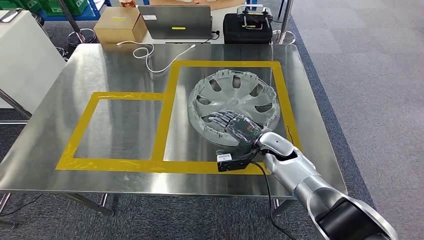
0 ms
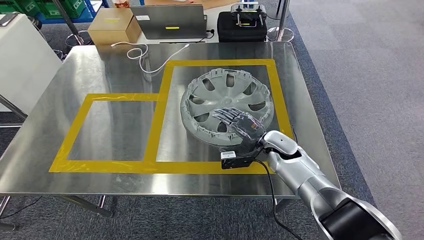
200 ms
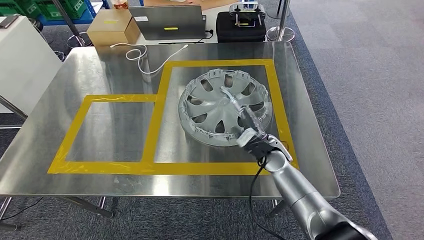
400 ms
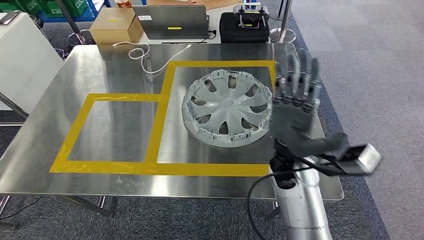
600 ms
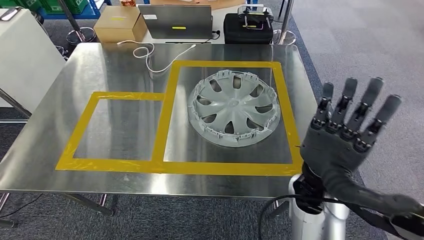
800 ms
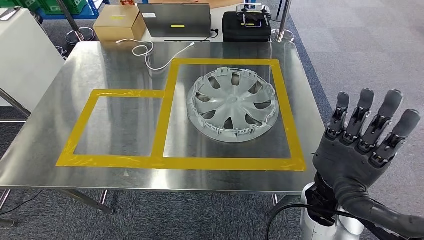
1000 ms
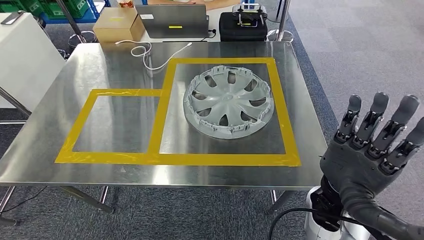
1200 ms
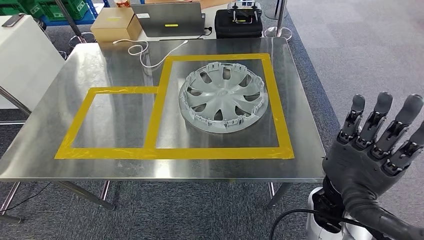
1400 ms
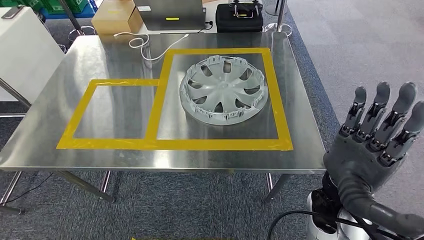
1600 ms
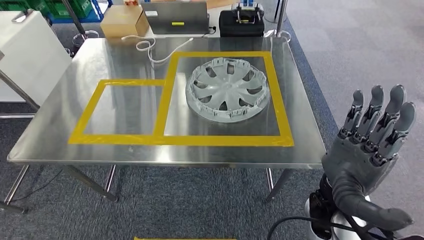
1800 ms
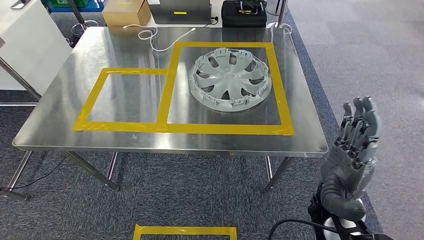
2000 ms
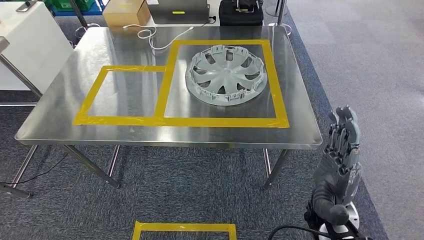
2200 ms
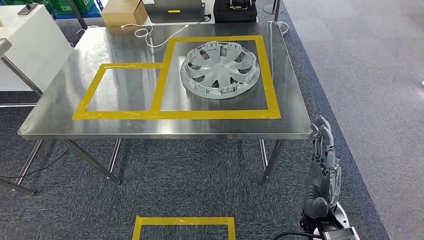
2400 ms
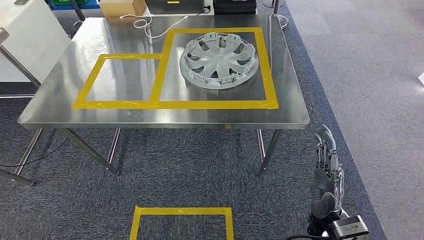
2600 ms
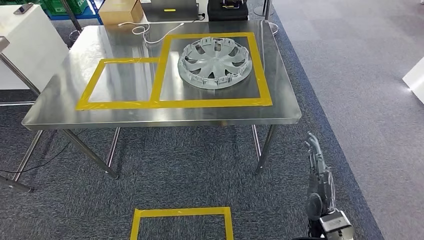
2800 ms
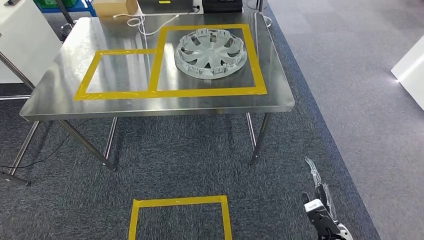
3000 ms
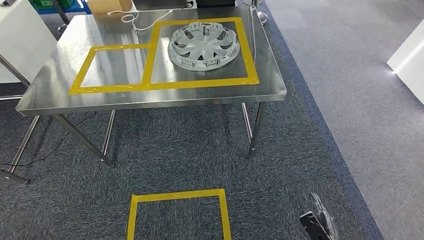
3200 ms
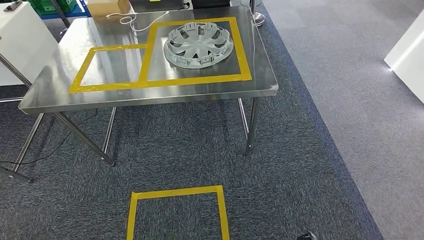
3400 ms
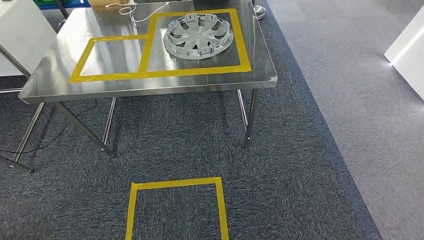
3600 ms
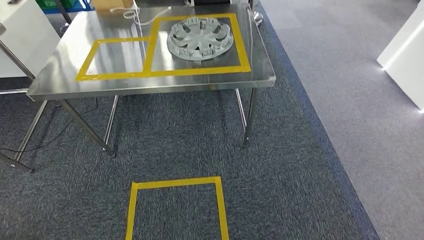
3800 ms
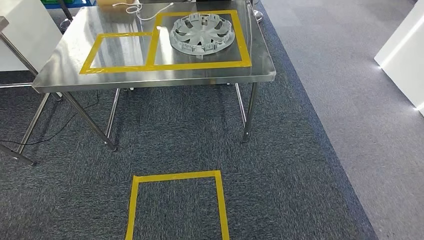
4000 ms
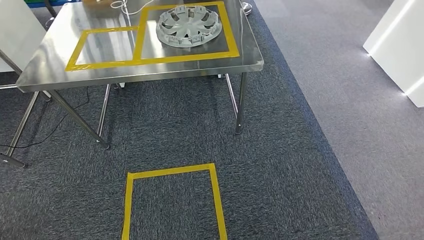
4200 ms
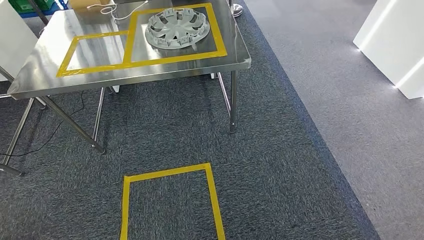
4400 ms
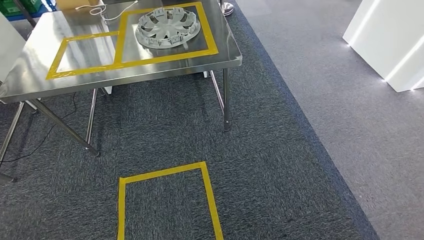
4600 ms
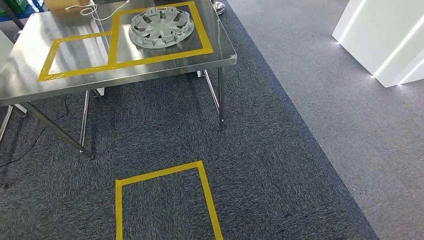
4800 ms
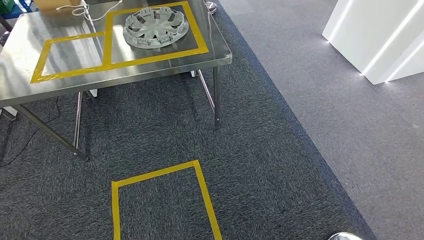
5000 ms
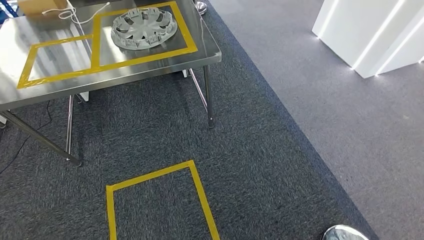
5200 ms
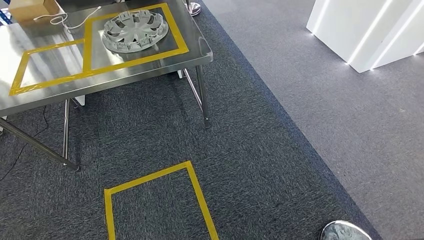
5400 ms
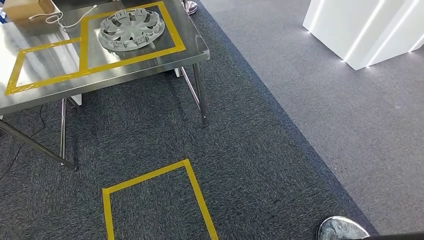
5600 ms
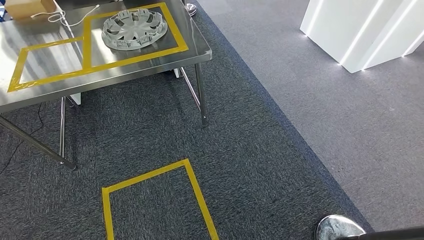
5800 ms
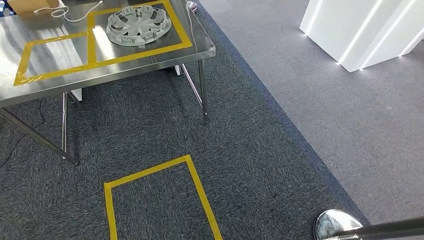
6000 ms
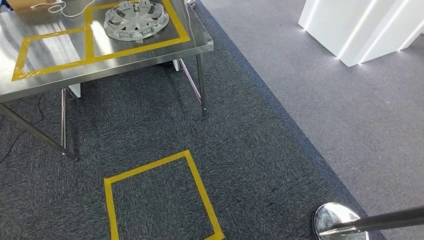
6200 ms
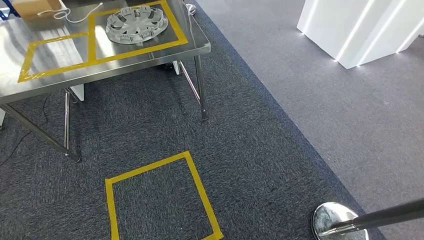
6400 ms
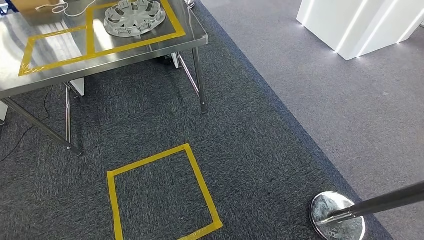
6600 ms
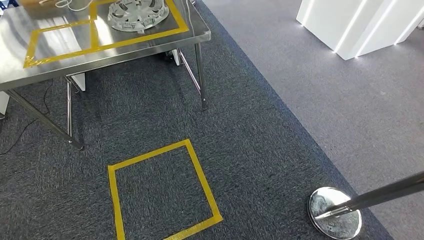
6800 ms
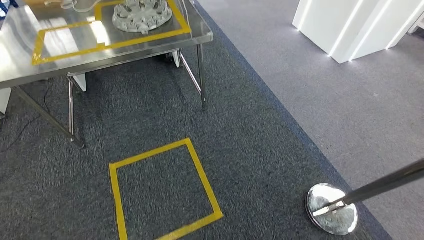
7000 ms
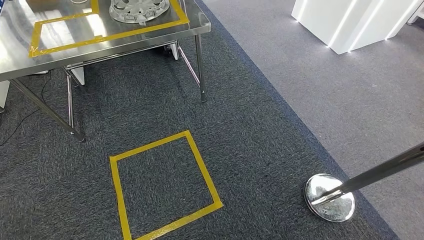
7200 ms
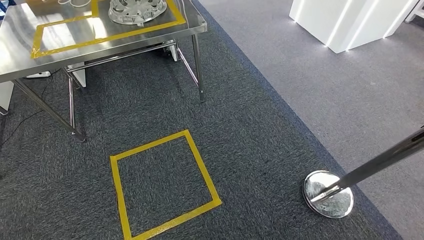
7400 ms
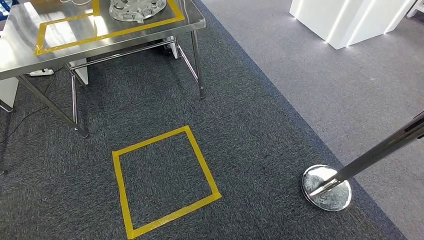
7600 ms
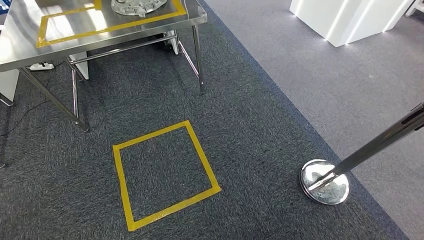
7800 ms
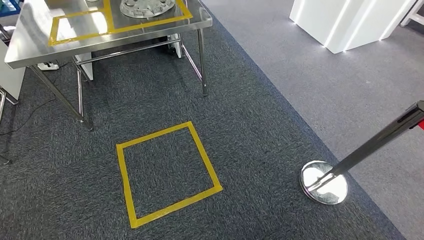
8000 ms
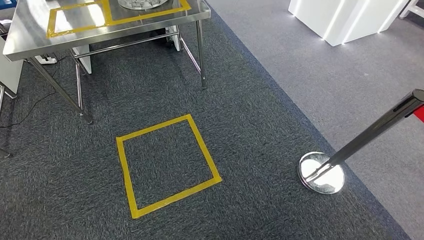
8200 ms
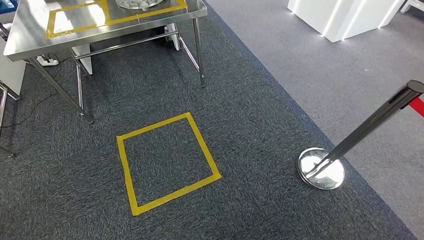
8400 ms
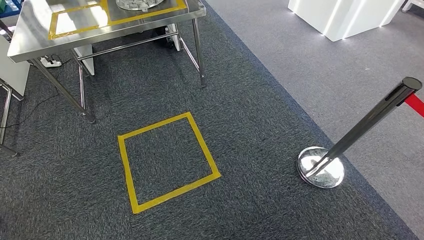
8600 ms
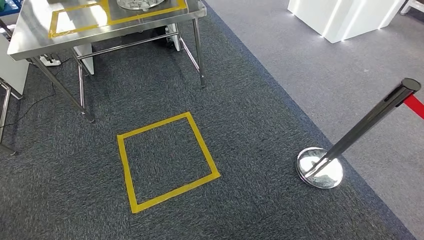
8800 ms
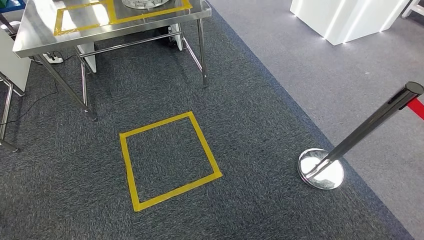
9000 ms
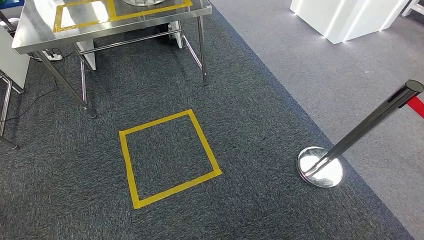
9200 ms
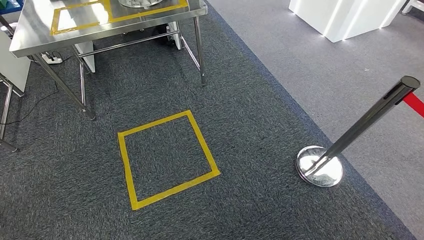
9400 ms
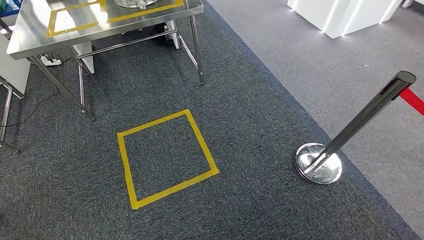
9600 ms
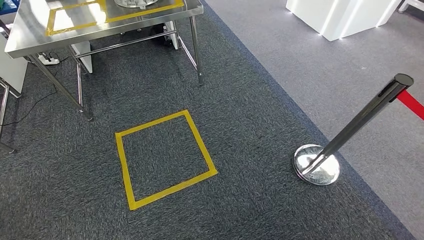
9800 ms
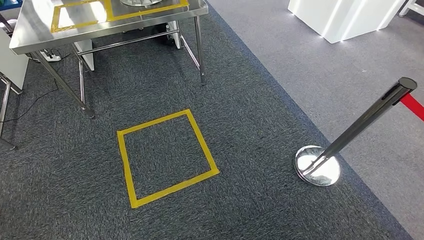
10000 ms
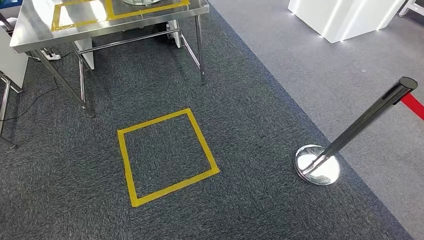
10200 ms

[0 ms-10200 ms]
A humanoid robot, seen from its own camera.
Step, 400 ms to 10000 ms: Move to the initial position at the workbench.
